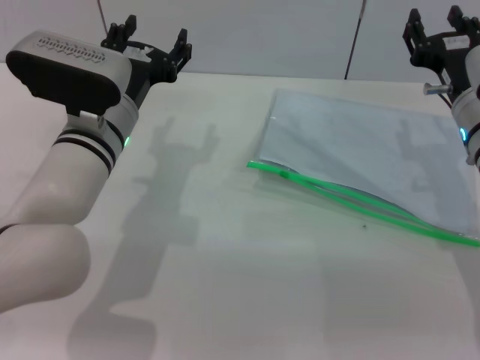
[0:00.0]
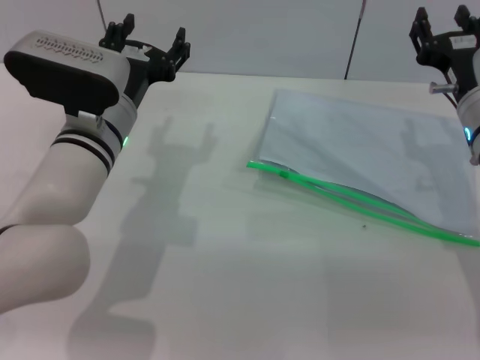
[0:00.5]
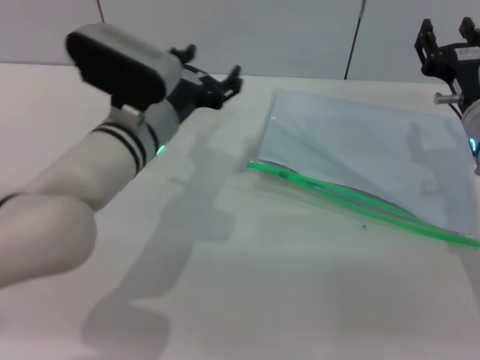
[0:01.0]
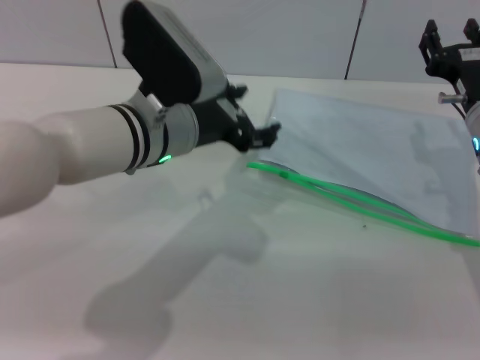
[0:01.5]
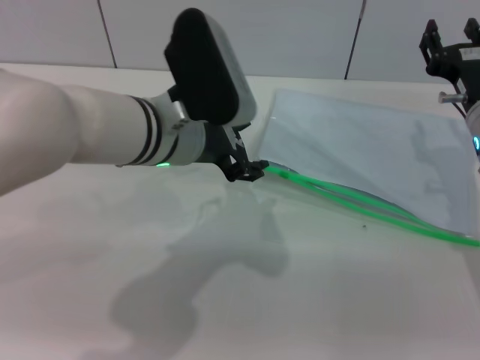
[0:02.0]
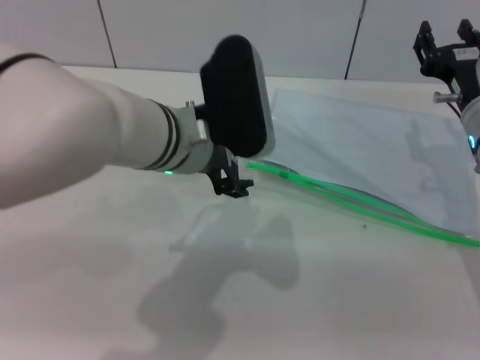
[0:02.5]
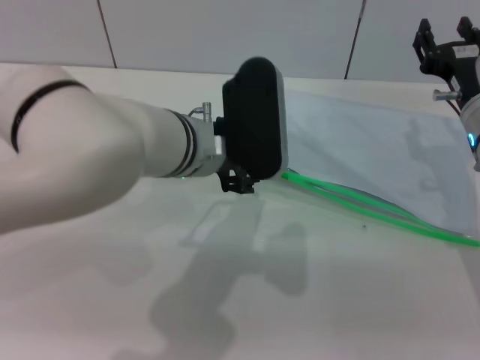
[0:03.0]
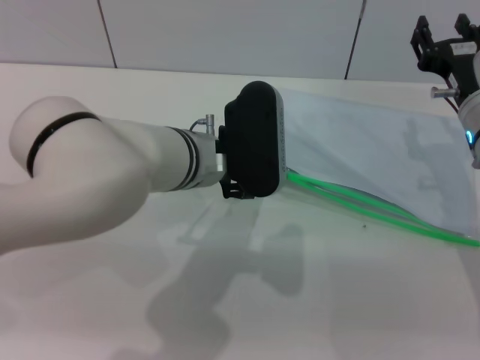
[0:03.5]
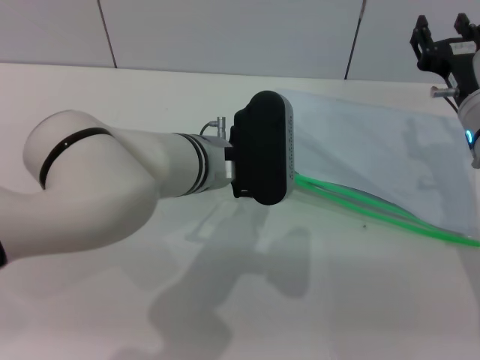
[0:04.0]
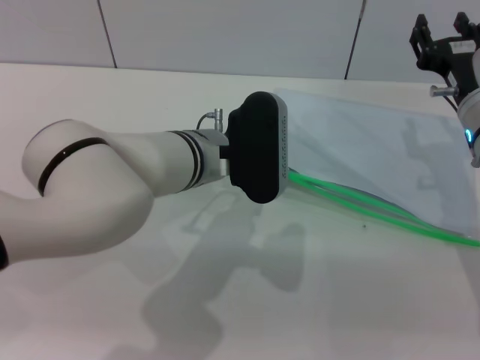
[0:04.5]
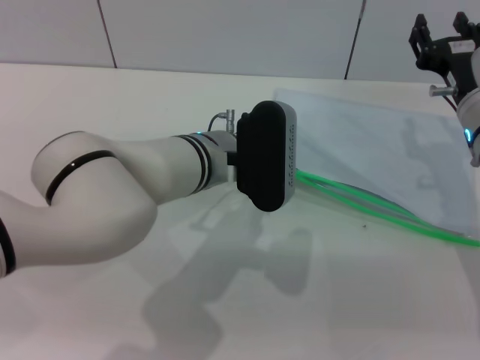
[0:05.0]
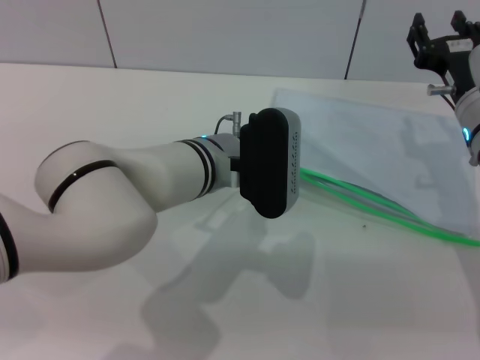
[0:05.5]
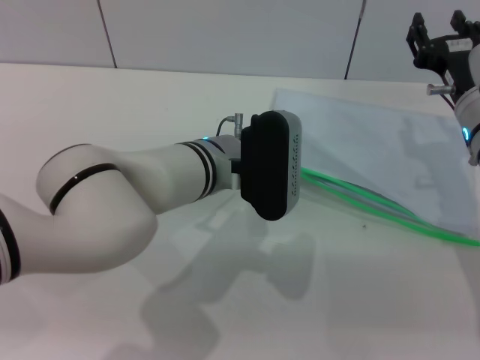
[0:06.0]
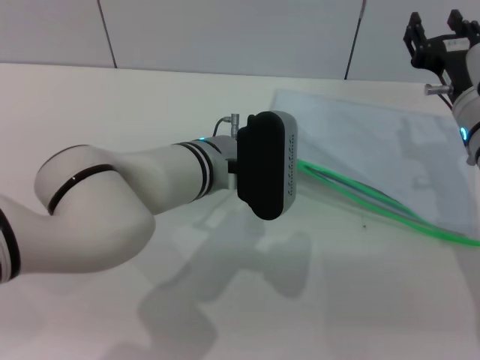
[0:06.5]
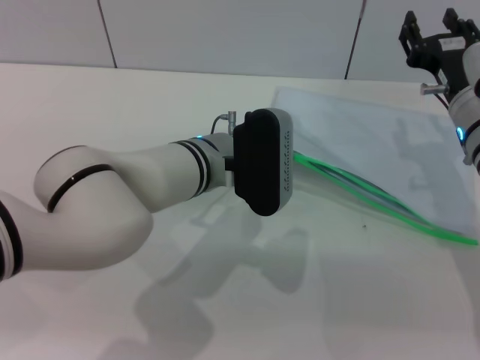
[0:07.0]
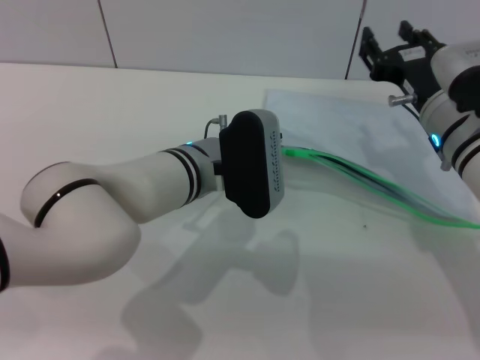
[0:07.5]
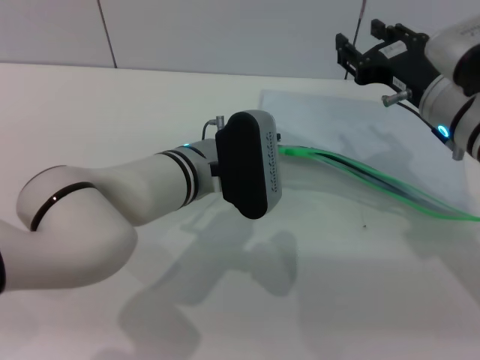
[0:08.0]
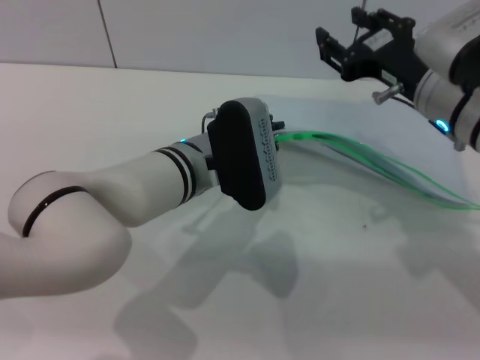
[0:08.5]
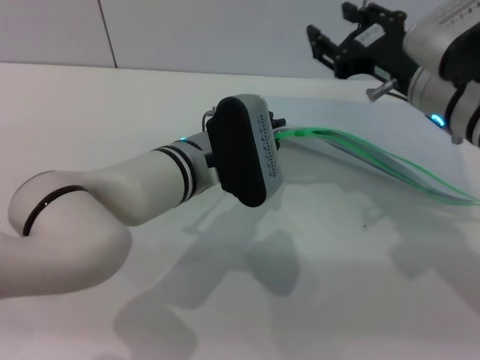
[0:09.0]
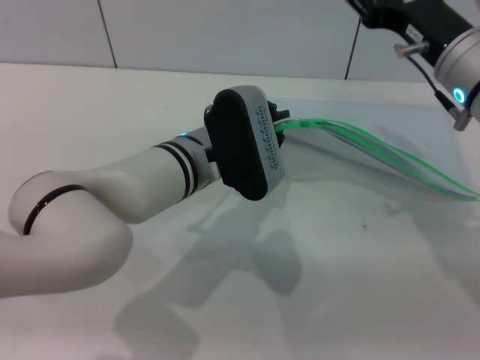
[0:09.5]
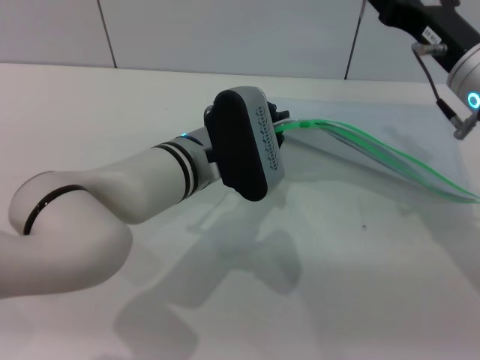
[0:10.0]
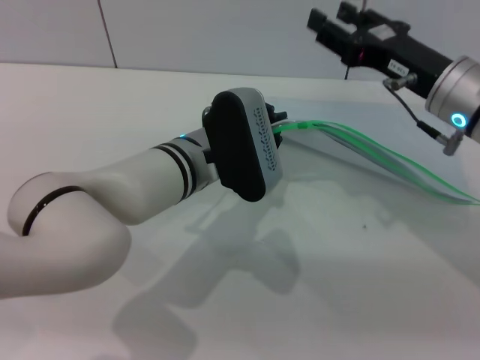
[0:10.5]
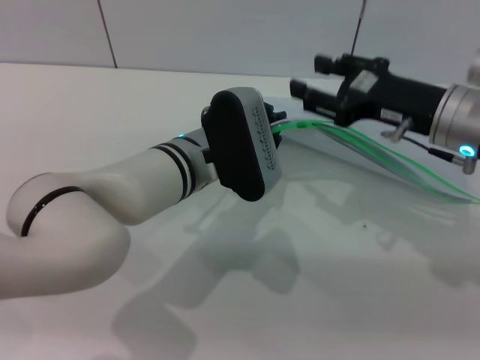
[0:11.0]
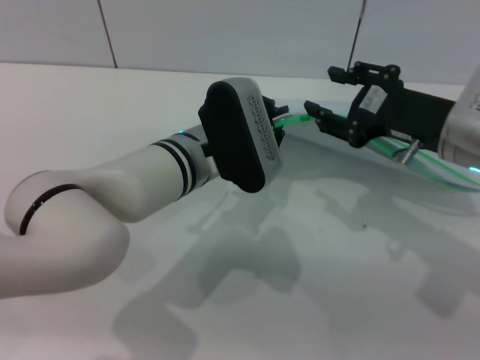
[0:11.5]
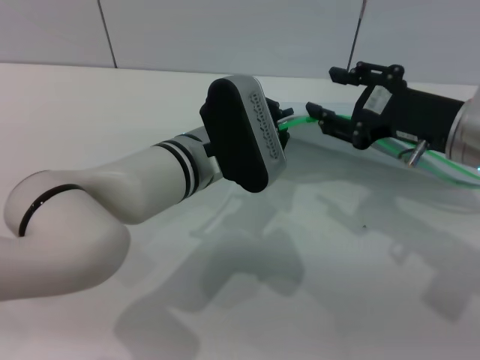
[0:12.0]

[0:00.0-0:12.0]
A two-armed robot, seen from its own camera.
Step, 0:00.0 to 0:08.0: Pick up the transparent plastic bag with the left gripper.
0:00.0 to 0:02.0: The left gripper heads to the right and upward, covering some 10 cm.
0:02.0 to 0:04.0: The left gripper ends up roughly 5 cm from where it was.
0:04.0 to 0:06.0: The grippers move only a little.
0:06.0 to 0:08.0: The left gripper closes.

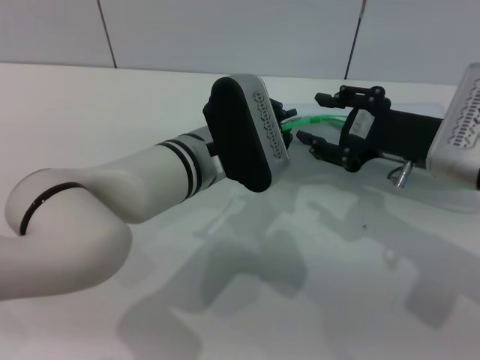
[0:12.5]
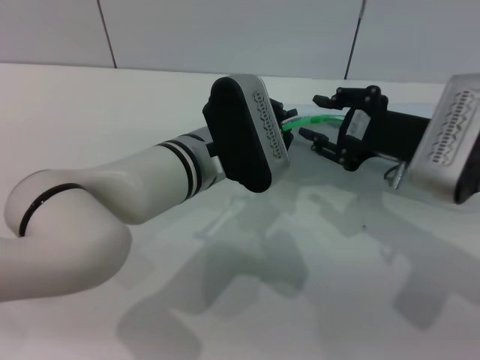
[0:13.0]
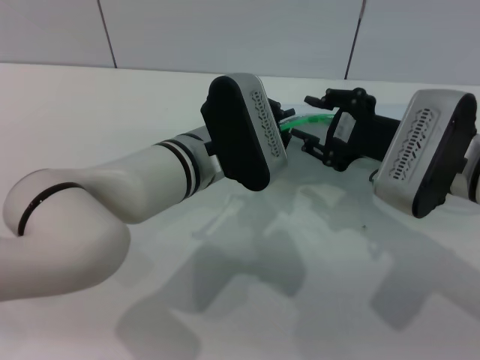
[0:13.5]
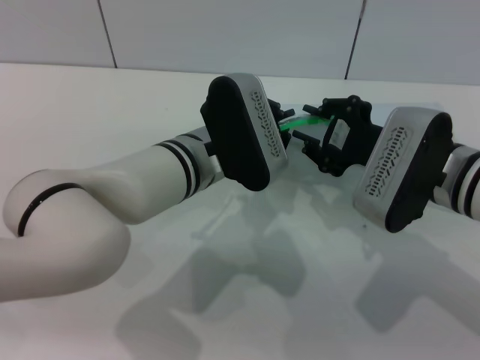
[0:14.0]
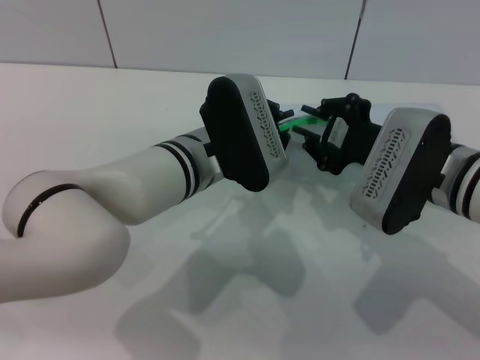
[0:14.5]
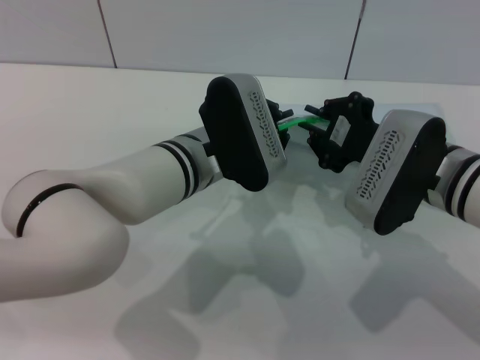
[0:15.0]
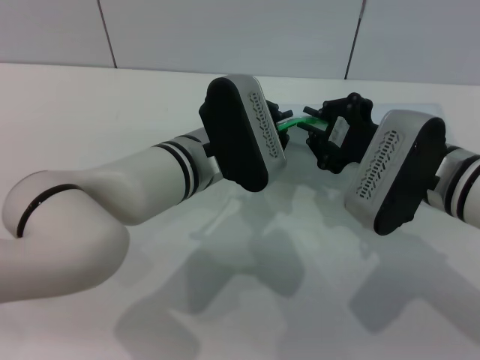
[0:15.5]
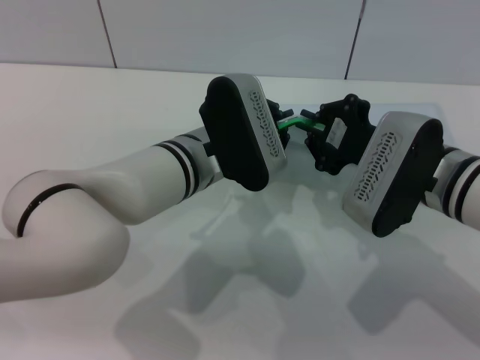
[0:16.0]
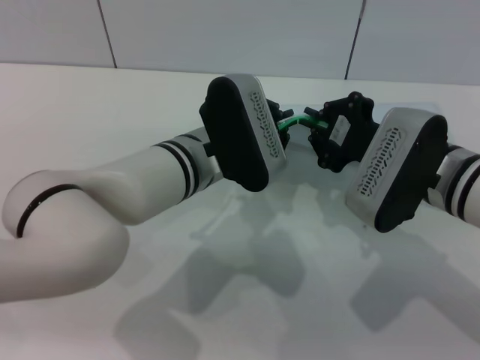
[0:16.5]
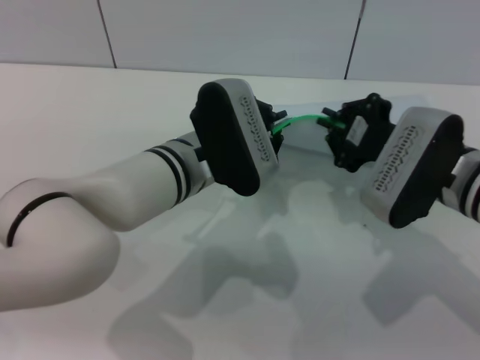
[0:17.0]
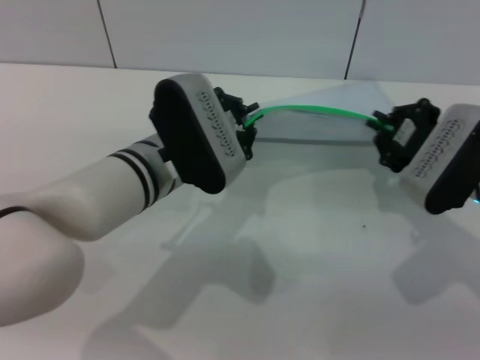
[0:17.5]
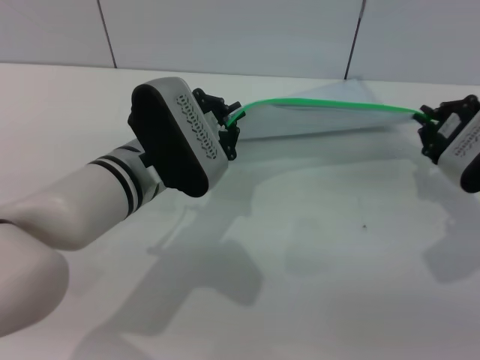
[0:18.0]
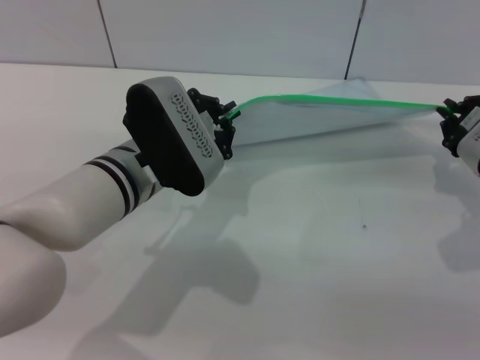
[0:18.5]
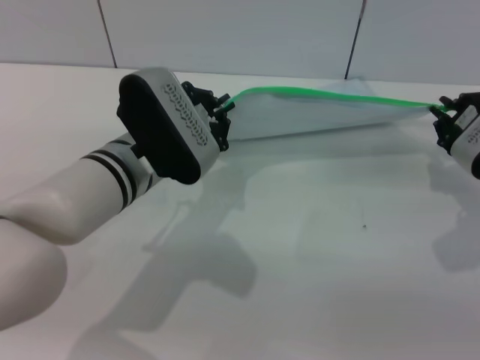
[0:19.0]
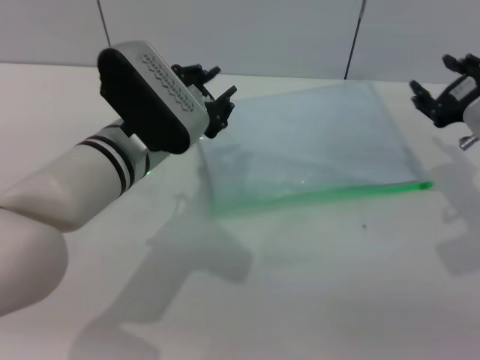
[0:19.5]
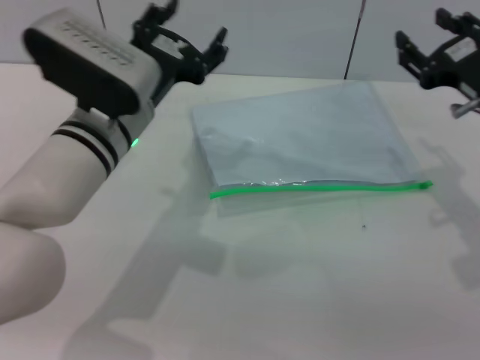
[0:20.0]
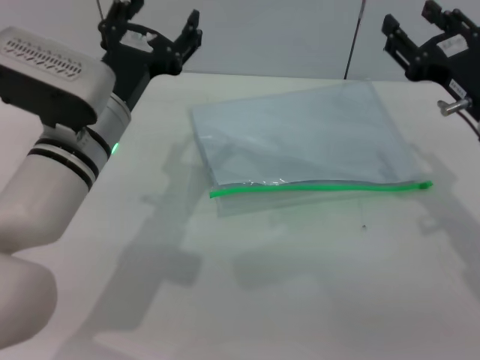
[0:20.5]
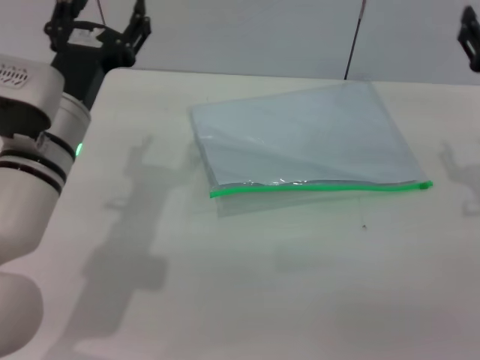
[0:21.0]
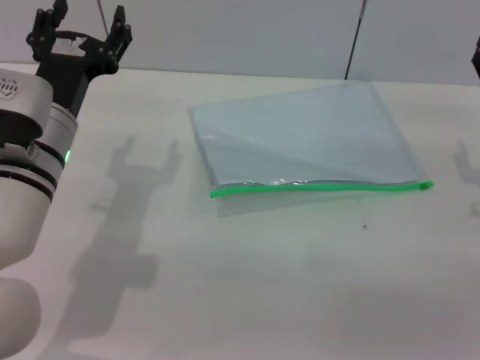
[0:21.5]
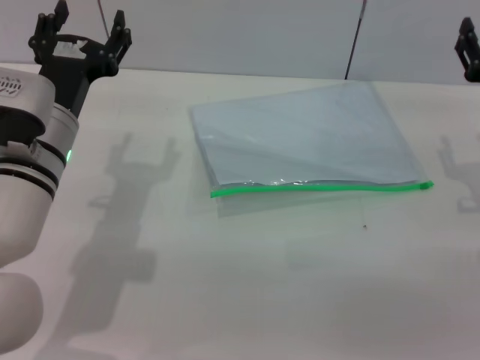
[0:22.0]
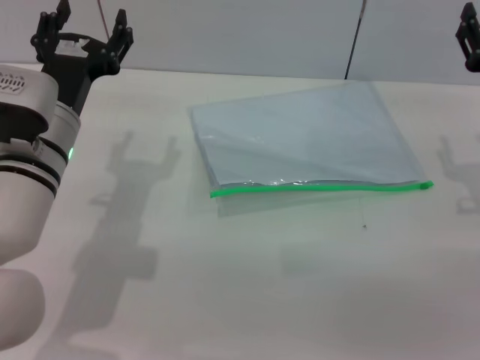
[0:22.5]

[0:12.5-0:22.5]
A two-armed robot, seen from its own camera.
Step, 0:12.5 to 0:19.5: Pulling up the zipper on the transparent plastic bag with the right gripper to close it.
Step, 0:20.0 to 0:21.5: Place the transparent plastic bag.
0:12.5 to 0:14.5: The right gripper closes up.
0:14.5 to 0:16.5: The two grippers keep their place.
0:16.5 to 0:18.5: The left gripper goes approximately 5 cm to the left; the right gripper is displaced to the right by some 10 cm.
0:18.5 to 0:20.5: The left gripper opens, while the right gripper moves about 5 cm, and opens up.

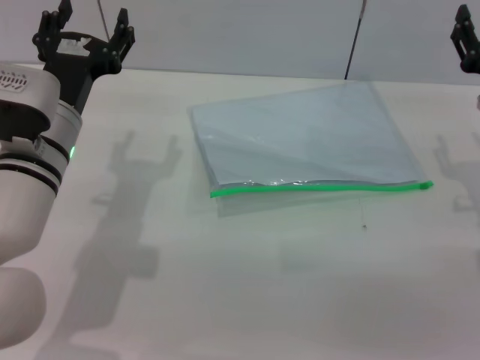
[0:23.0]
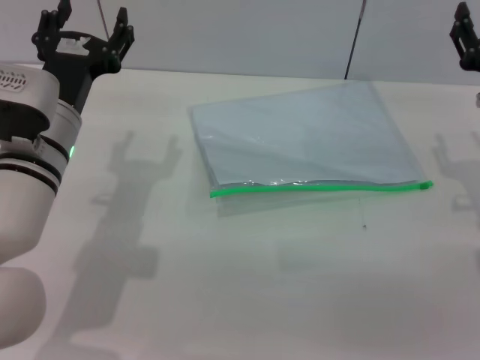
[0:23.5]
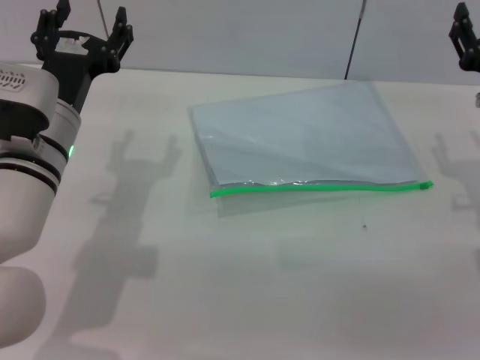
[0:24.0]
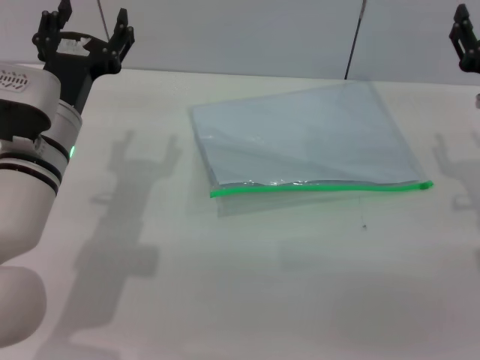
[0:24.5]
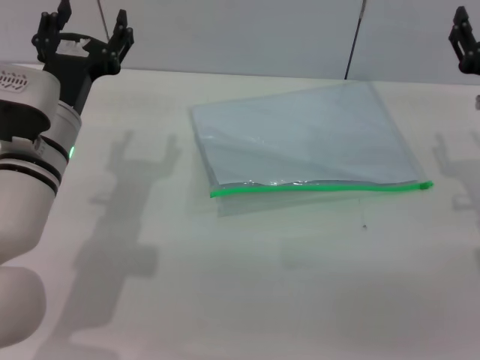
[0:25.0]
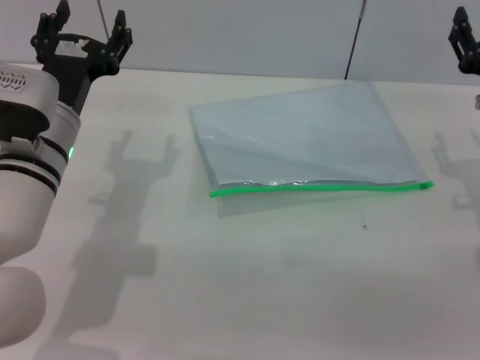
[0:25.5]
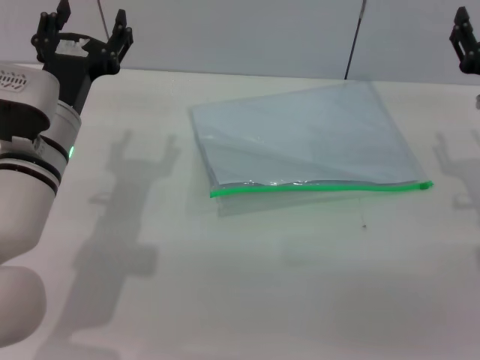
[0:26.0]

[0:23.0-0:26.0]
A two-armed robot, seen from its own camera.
0:23.0 to 0:26.0: Both grippers stay put.

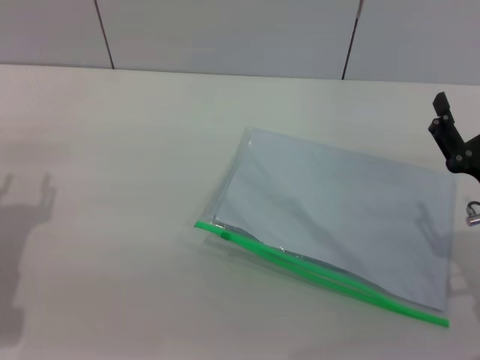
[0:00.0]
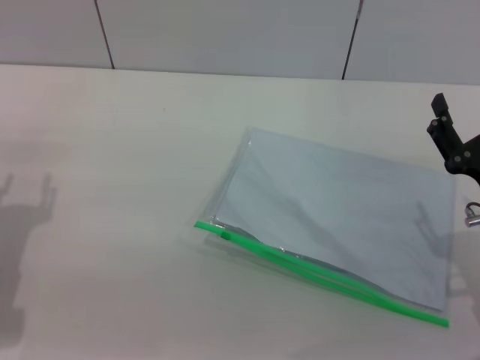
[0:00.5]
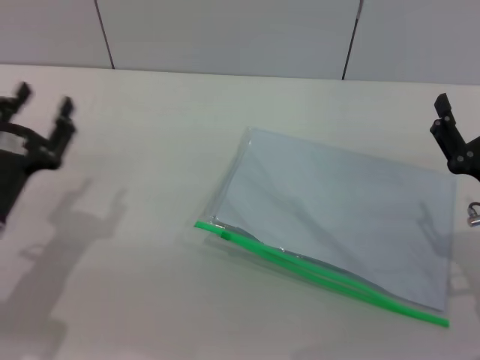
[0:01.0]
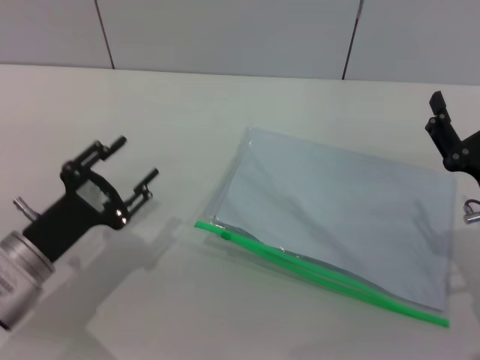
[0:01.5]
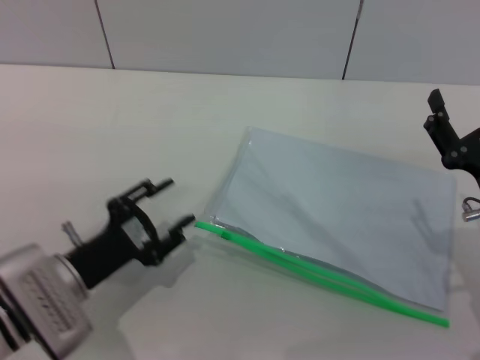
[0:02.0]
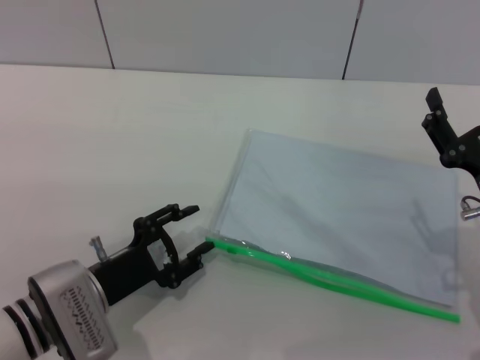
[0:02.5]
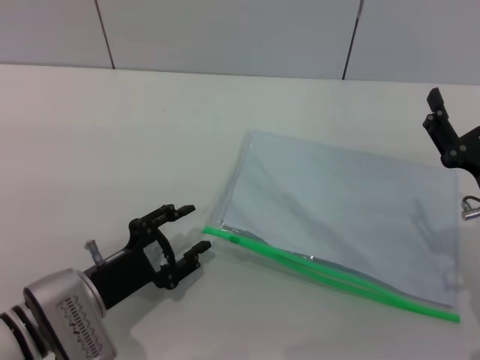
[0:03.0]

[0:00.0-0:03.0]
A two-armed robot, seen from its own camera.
0:00.0 to 0:01.5: The left gripper heads to the right, covering approximately 5 cm.
0:01.5 to 0:03.0: The left gripper shifts by approximately 5 cm.
